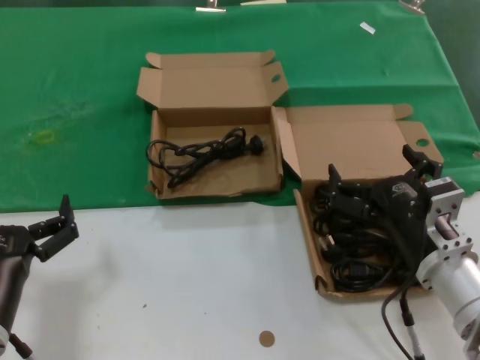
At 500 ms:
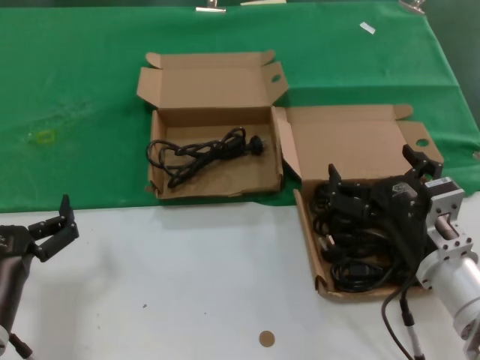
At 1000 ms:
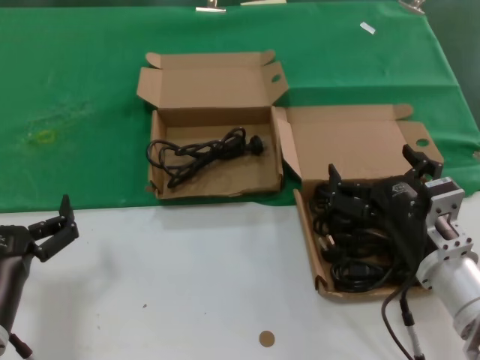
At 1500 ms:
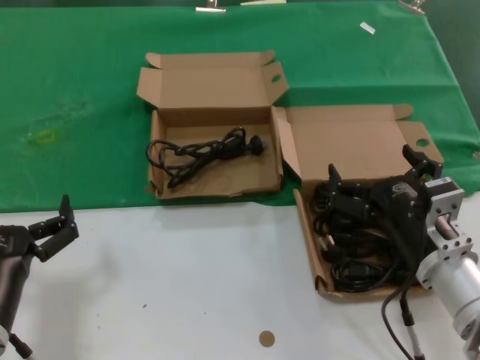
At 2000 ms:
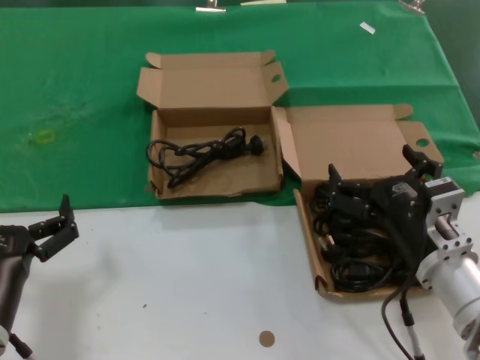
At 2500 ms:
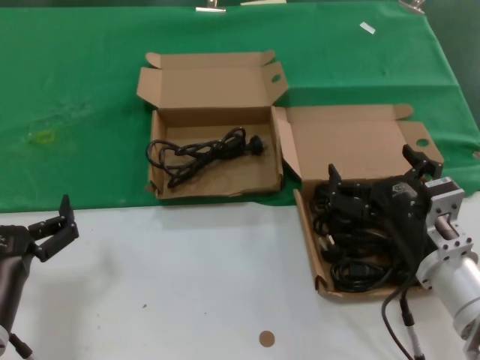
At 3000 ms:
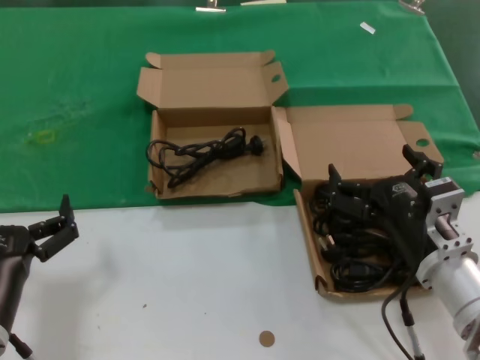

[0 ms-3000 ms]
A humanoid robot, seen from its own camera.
Task of the whole recording: take the parts from the box containing them and put them into an empty box.
0 ms to 3000 ms: Neither hand changes place.
